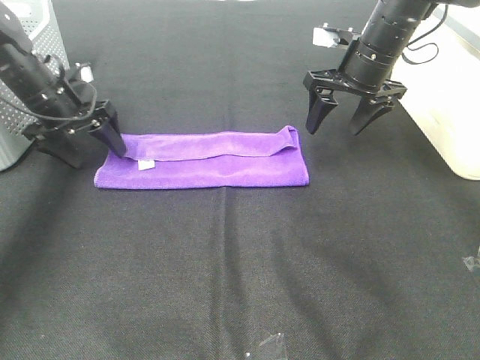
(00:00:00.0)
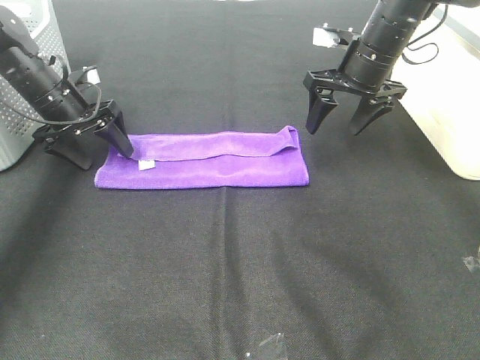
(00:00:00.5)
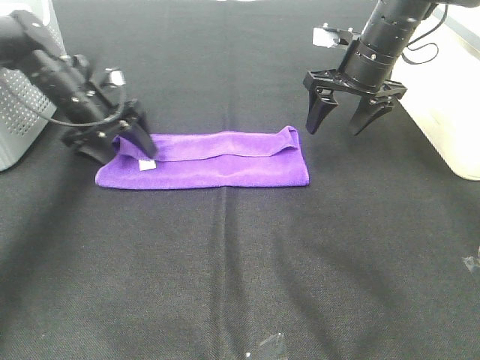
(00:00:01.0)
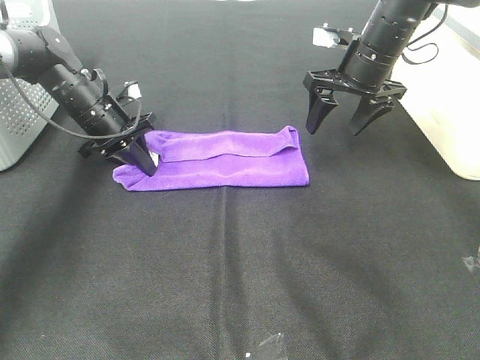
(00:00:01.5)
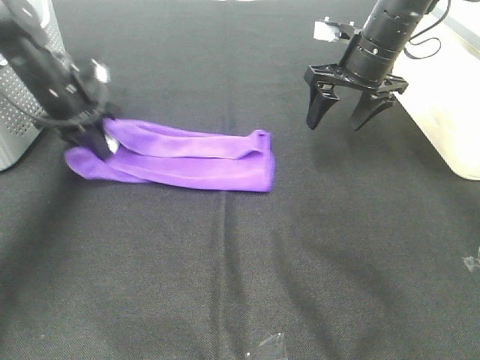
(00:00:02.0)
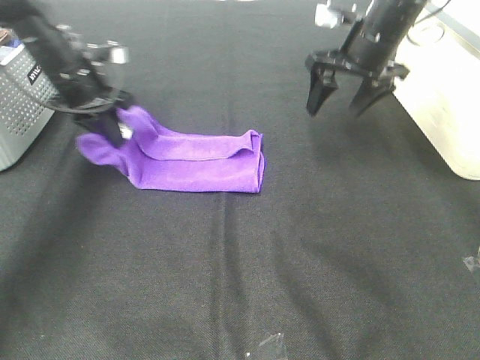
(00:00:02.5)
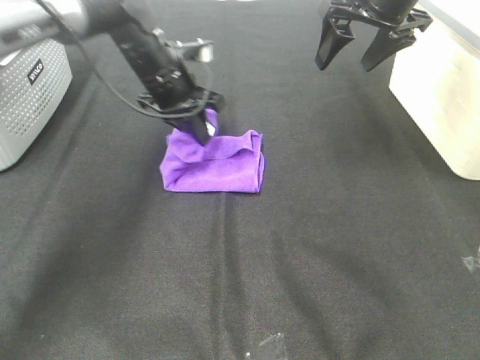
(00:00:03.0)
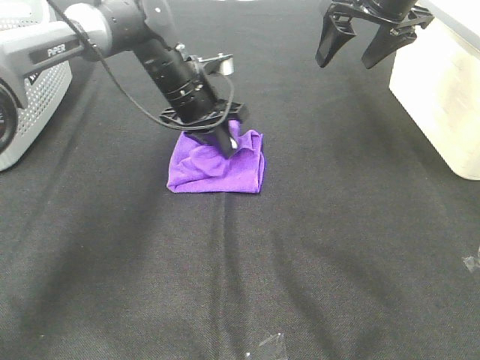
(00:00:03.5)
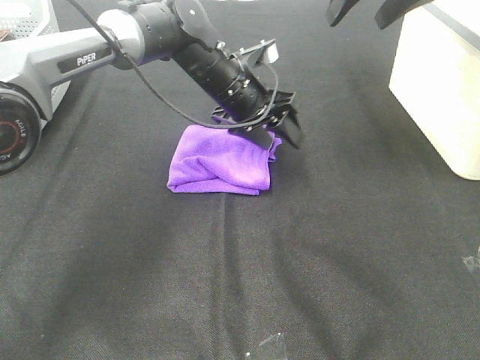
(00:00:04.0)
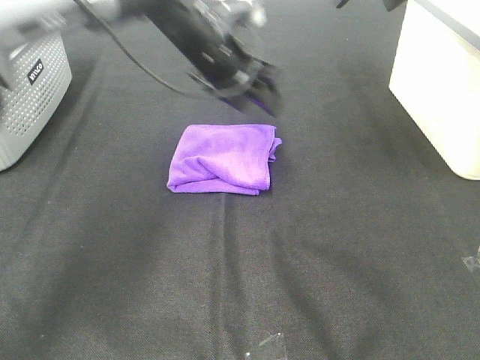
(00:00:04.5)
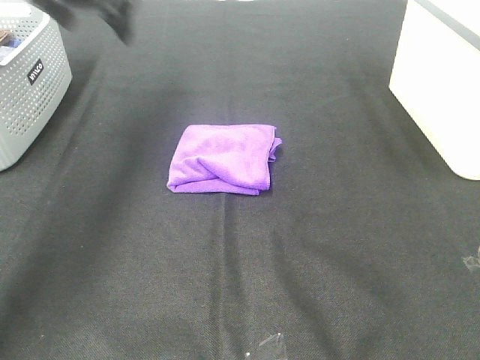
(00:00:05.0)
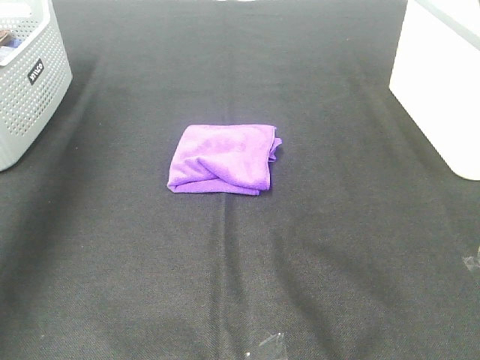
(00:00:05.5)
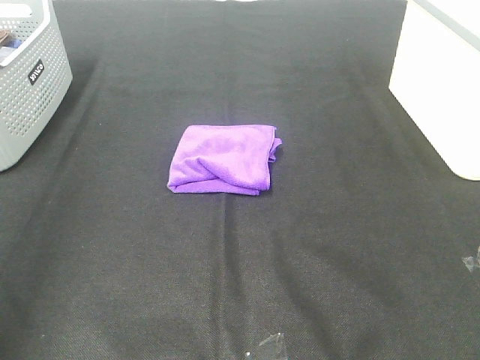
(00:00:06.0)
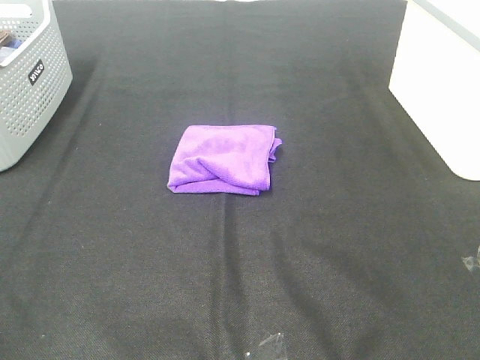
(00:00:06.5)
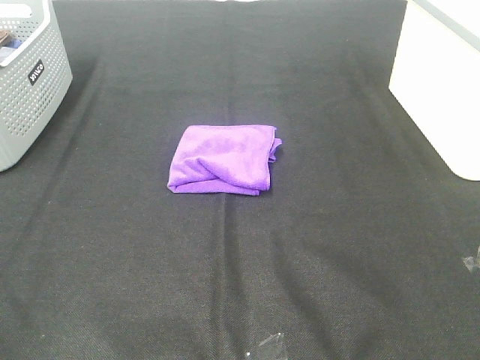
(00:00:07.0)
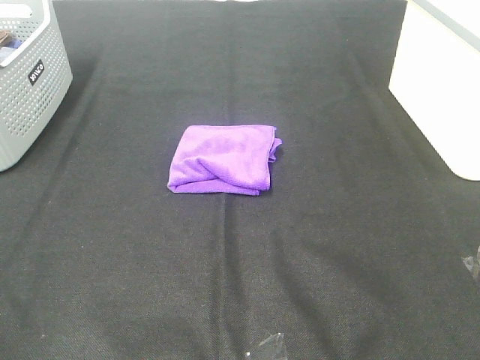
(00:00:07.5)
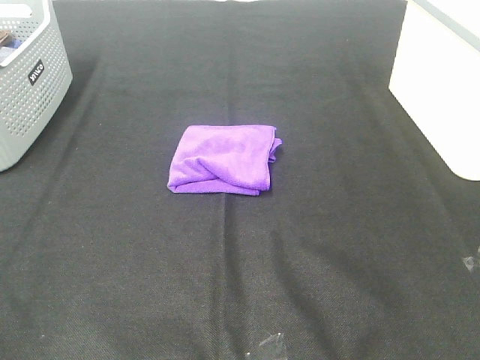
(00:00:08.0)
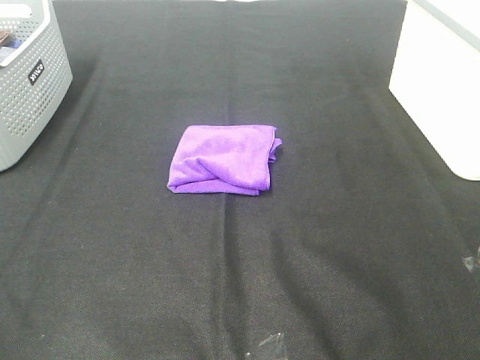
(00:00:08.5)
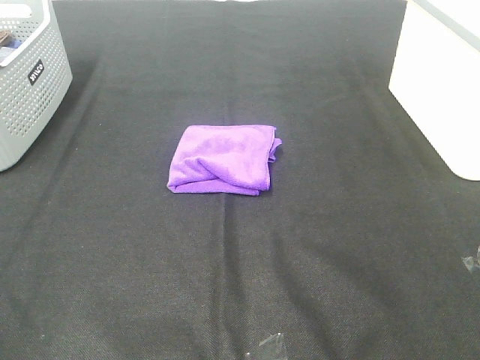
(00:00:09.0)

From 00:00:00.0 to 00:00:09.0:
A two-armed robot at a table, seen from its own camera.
Task of the whole recording: Fold towels.
Step, from 00:00:00.0 to 00:00:03.5: Left hand: fold the purple towel from left to right.
From 00:00:00.0 to 00:00:02.0: The left gripper closes.
From 00:00:02.0 to 00:00:04.5: The right gripper shifts approximately 15 cm upward. The left gripper shifts some 20 cm to the right, and opens.
From 00:00:04.5 to 00:00:07.0: The right gripper is displaced backward by approximately 40 cm. Meanwhile the left gripper travels backward and to the left by approximately 50 cm.
From 00:00:07.0 to 00:00:09.0: Both grippers stay about where they are.
